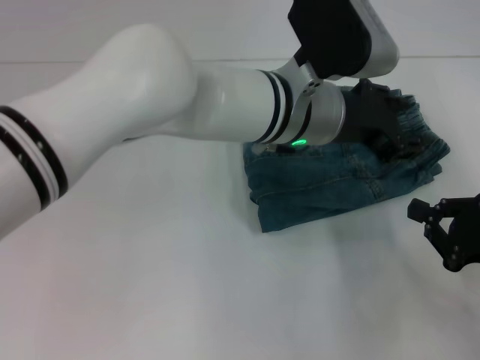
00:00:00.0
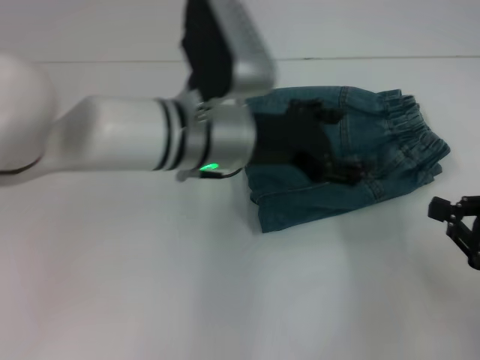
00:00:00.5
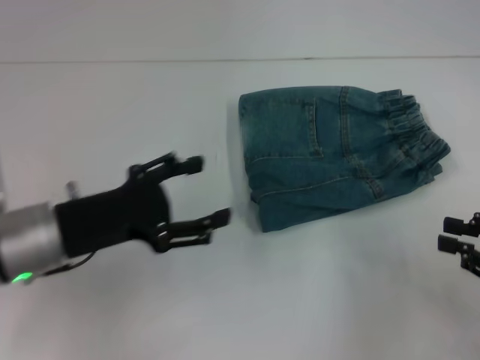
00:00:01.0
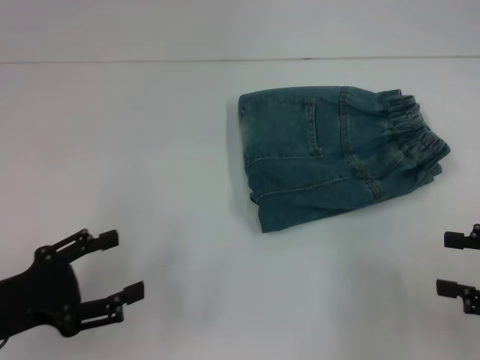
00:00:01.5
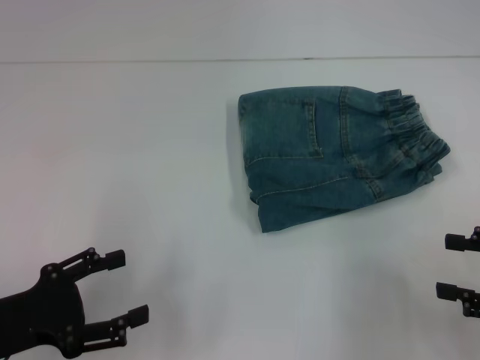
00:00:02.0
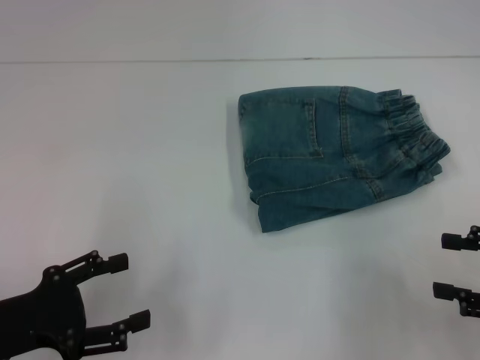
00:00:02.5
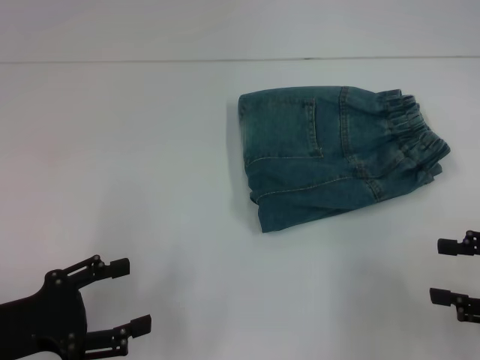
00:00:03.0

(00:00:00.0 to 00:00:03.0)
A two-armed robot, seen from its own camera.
00:00:00.0 - 00:00:01.5: The left gripper heads to the left and backward, covering some 35 cm, and opens its fingers; the right gripper ends up roughly 5 cm from where it was, and opens up.
00:00:01.5 - 00:00:03.0: There are only small adjustments of the grippers.
